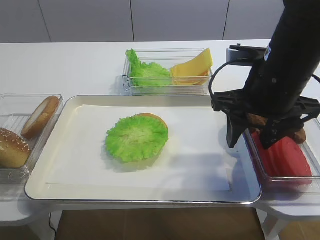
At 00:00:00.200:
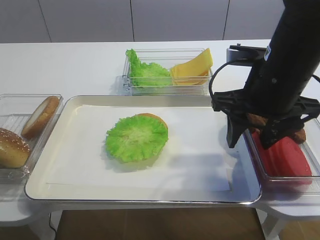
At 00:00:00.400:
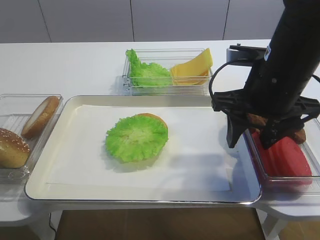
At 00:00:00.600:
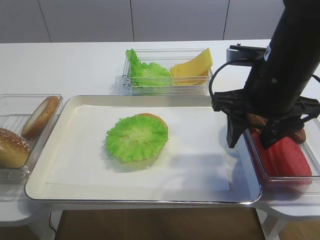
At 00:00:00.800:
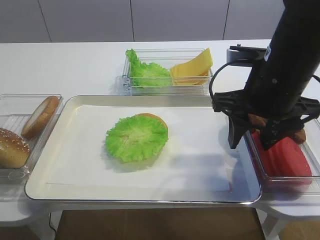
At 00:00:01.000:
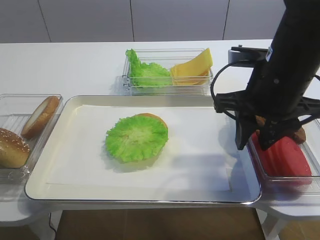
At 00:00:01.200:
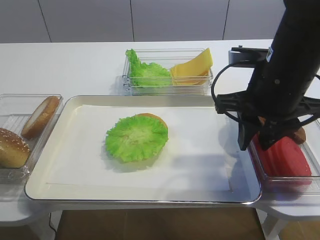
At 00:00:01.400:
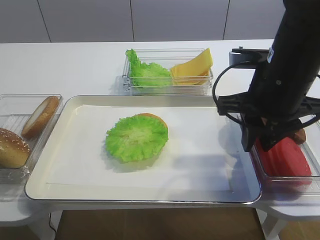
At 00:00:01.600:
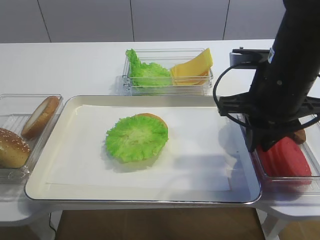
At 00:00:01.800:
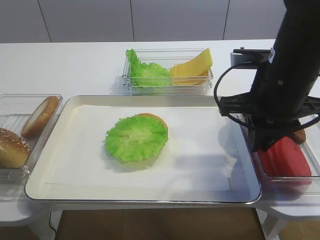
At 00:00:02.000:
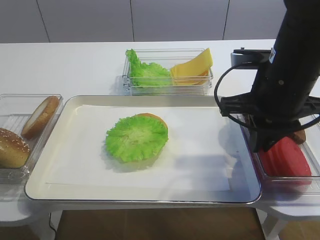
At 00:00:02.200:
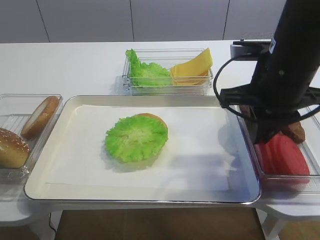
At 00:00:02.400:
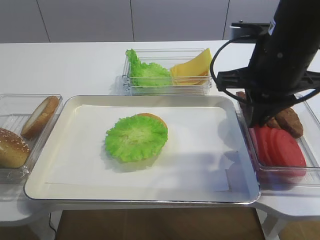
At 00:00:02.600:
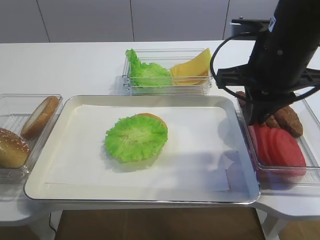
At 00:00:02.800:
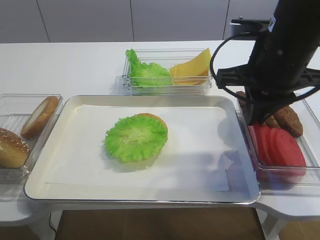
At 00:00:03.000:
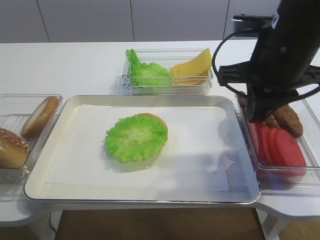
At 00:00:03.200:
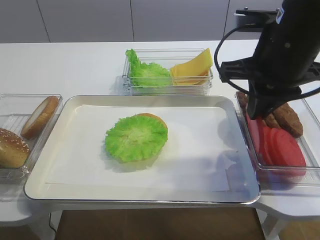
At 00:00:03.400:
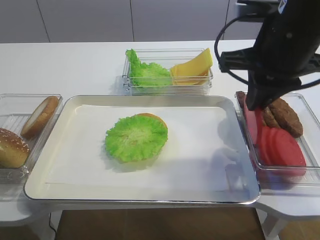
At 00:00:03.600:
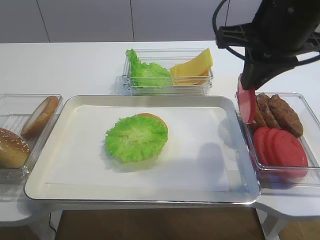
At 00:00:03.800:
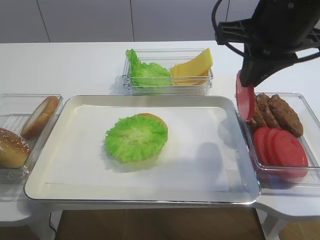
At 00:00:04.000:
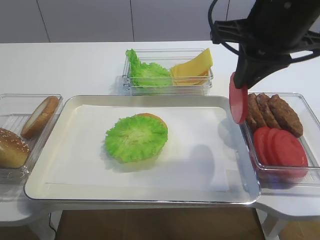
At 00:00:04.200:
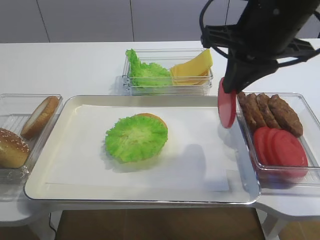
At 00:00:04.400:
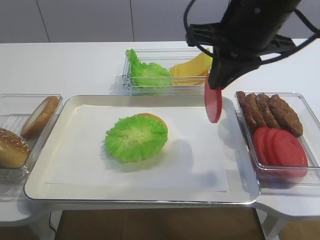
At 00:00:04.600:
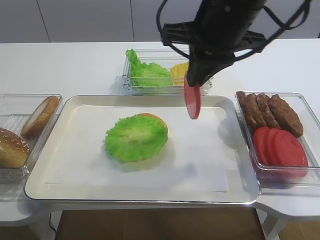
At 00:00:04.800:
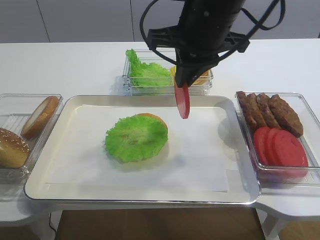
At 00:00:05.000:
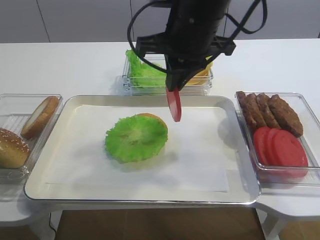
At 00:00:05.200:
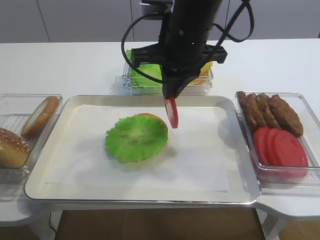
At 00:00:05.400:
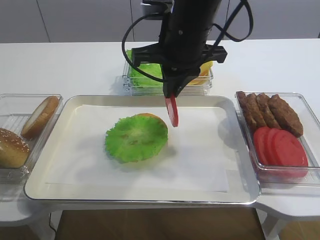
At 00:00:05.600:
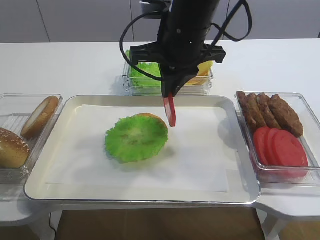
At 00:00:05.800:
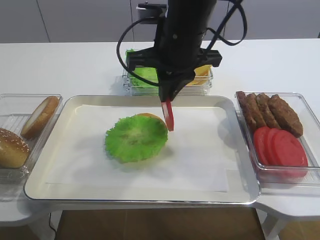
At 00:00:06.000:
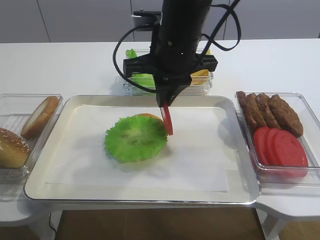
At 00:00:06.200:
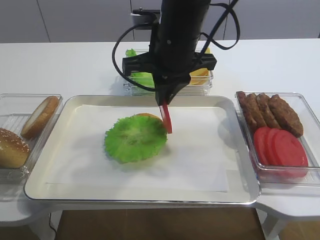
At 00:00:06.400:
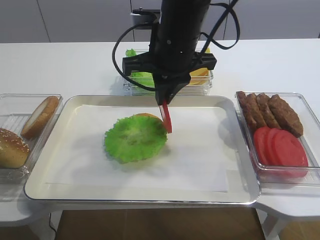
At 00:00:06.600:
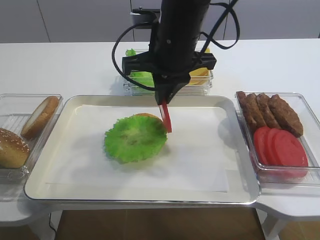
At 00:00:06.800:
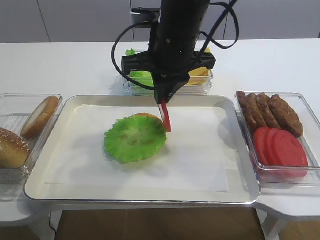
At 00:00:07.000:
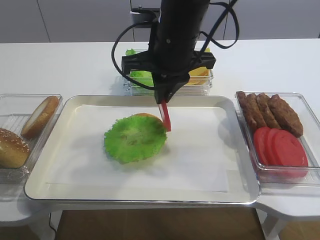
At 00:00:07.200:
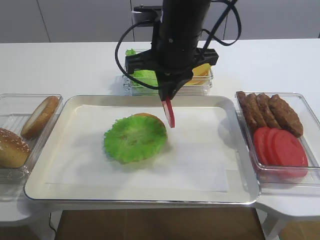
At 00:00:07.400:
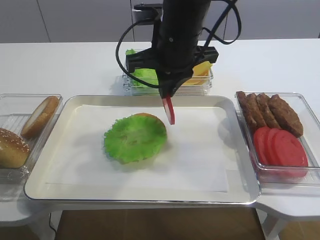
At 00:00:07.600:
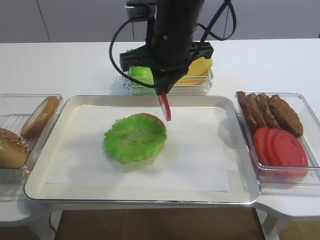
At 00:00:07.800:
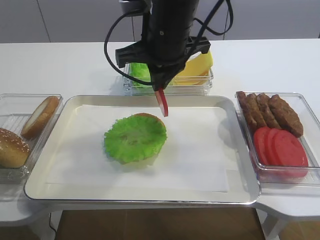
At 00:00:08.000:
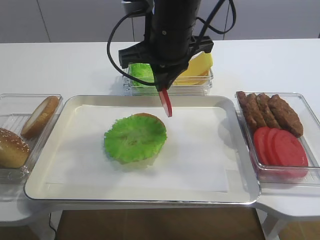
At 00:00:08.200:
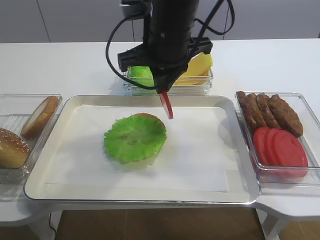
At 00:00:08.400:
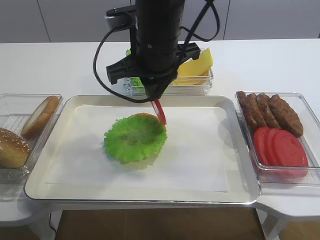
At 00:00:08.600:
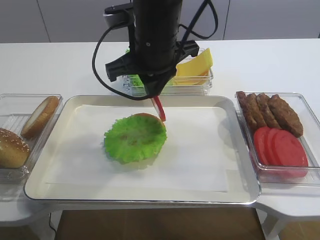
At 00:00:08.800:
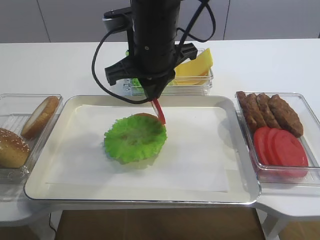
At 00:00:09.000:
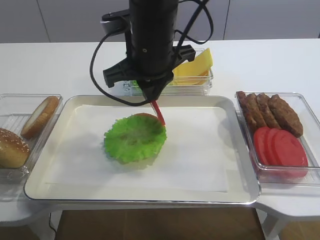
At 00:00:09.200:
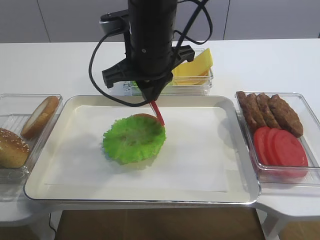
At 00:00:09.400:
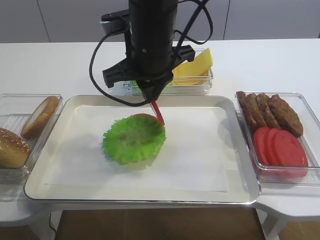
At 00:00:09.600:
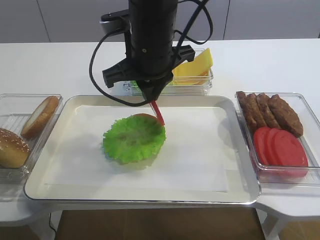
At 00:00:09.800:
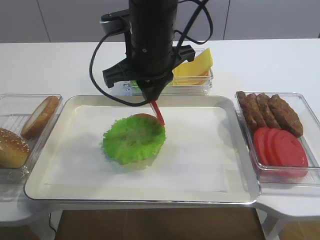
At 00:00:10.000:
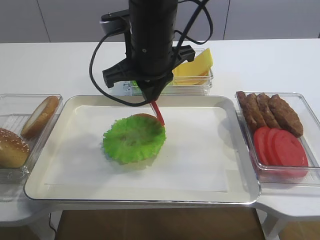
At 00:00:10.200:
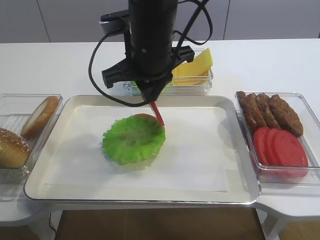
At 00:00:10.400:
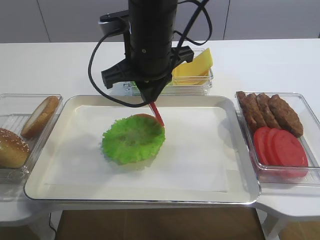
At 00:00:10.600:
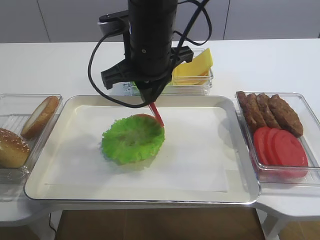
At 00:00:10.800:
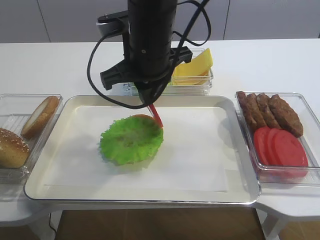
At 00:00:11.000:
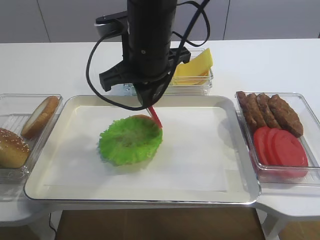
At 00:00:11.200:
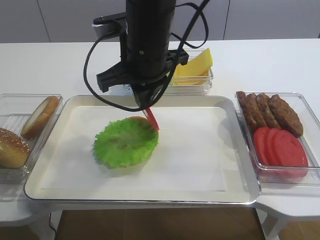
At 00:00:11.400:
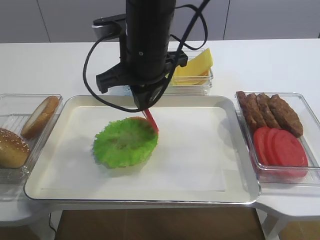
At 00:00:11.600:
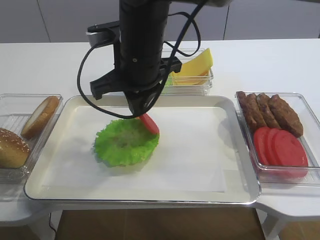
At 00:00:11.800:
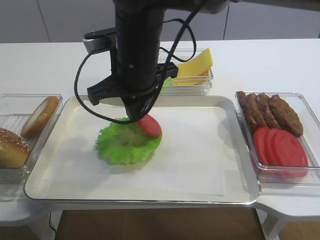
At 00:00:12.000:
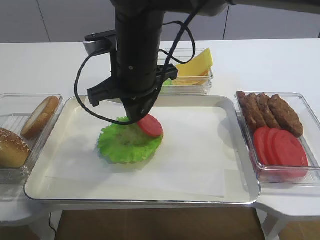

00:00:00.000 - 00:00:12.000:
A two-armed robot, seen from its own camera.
Step, 00:00:00.000 - 00:00:04.400: Pick up the tomato slice with the right gripper.
00:00:00.000 - 00:00:01.600: The right gripper closes up.
00:00:01.600 - 00:00:03.000: The grippers move only a little.
00:00:03.000 - 00:00:04.400: The right gripper changes place by roughly 5 cm.
00:00:04.400 - 00:00:06.000: The right gripper goes some 10 cm to the left.
00:00:06.000 - 00:00:09.000: The grippers move only a little.
00:00:09.000 - 00:00:10.400: Both grippers stay put.
00:00:10.400 - 00:00:12.000: The grippers make only small movements.

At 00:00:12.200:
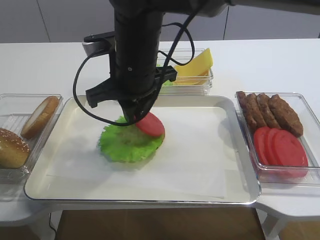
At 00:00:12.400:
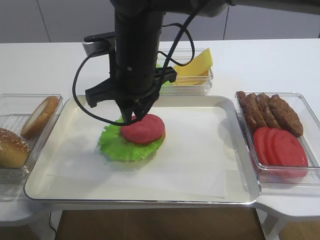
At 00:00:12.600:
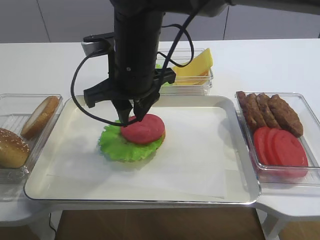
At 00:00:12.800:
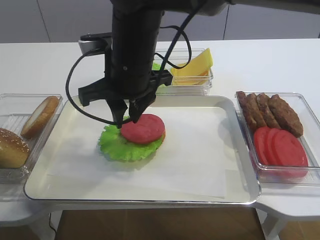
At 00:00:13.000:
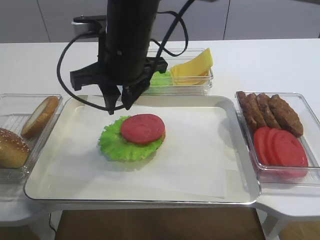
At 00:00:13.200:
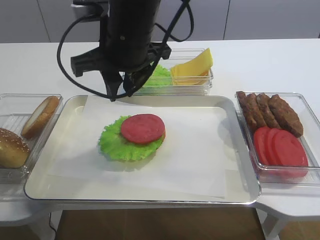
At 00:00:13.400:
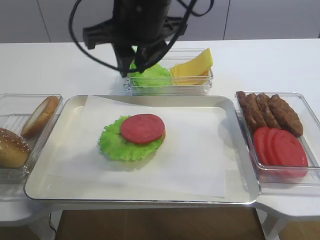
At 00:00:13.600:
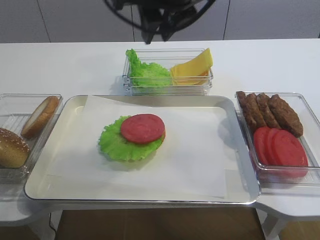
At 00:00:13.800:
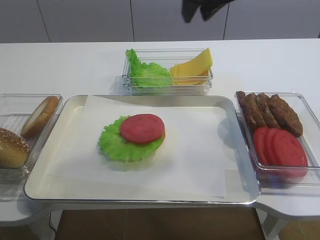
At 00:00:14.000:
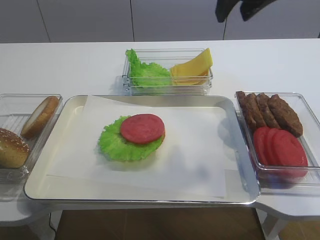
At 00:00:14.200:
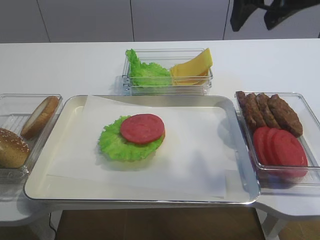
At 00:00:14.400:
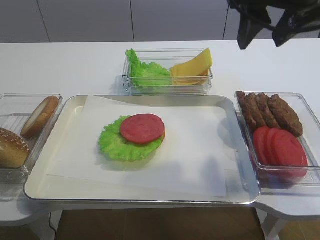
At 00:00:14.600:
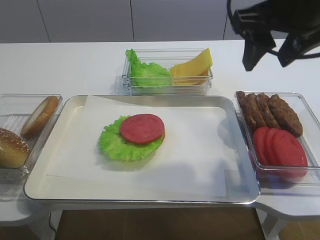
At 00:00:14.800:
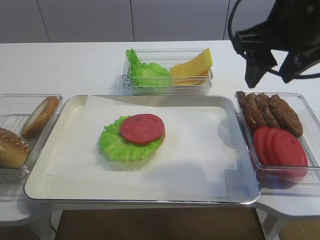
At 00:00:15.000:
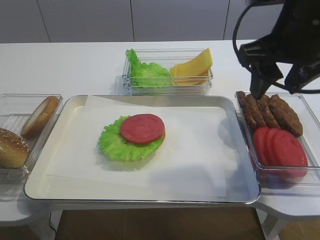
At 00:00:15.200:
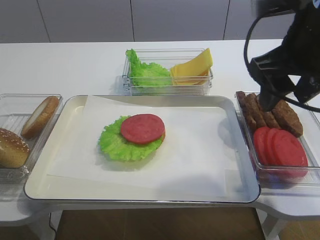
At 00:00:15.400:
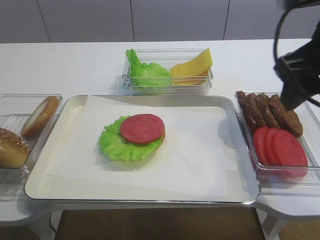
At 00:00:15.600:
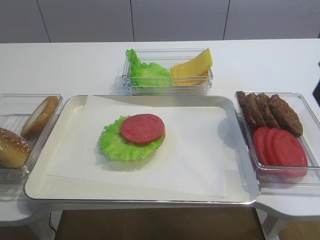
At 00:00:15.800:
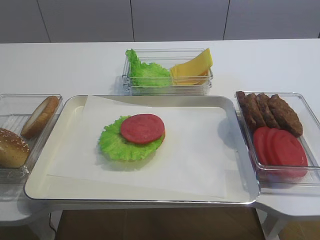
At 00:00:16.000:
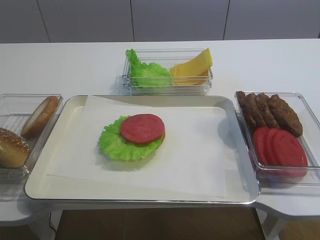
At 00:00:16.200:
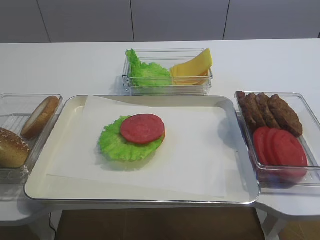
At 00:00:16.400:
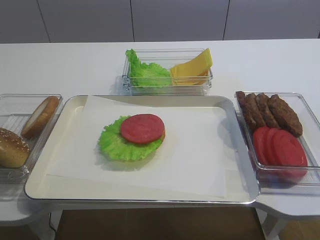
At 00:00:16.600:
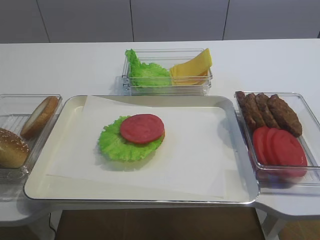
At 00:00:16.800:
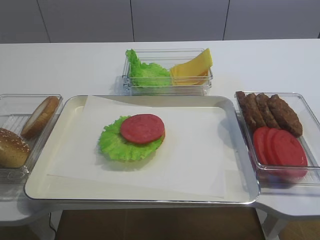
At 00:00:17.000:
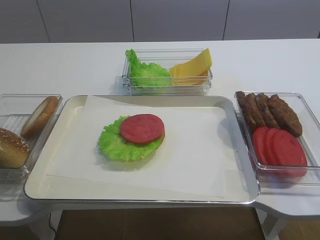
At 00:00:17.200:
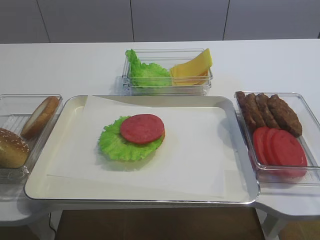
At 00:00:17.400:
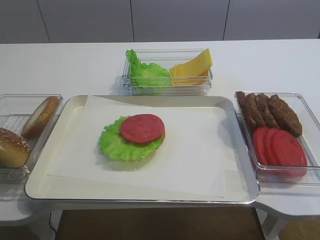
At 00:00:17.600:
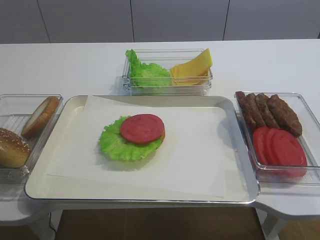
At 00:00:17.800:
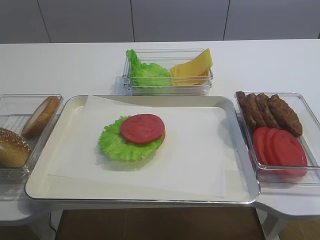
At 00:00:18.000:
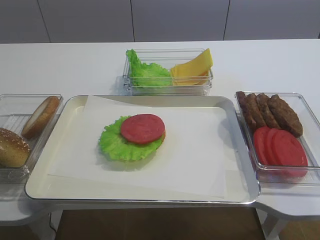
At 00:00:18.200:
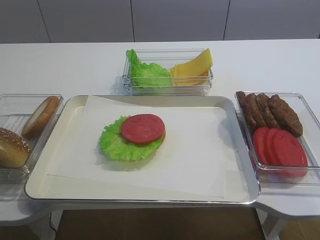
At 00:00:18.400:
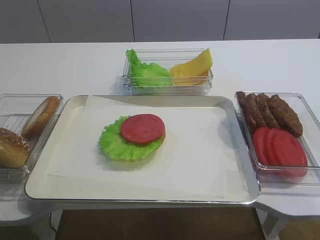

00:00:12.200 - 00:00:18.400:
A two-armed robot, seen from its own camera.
00:00:12.200 - 00:00:13.800: The right gripper heads upward and to the right, covering some 20 cm.
00:00:13.800 - 00:00:15.400: The right gripper travels to the right, backward and downward by some 15 cm, and opens its fingers.
00:00:15.400 - 00:00:16.800: The right gripper heads backward and to the right, covering approximately 20 cm.
